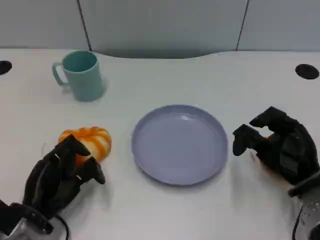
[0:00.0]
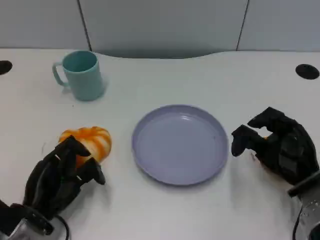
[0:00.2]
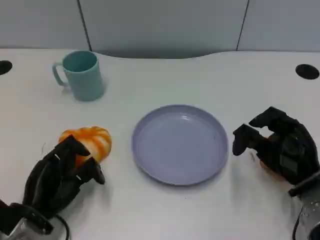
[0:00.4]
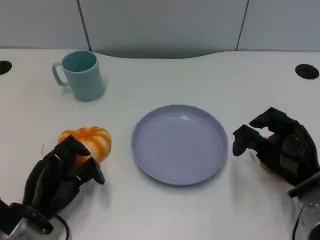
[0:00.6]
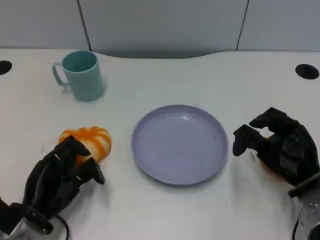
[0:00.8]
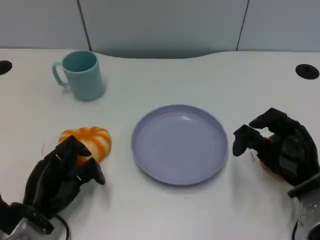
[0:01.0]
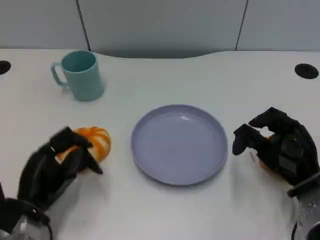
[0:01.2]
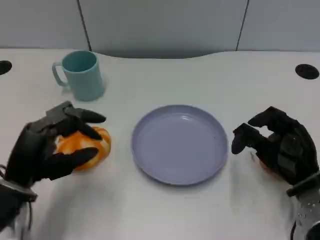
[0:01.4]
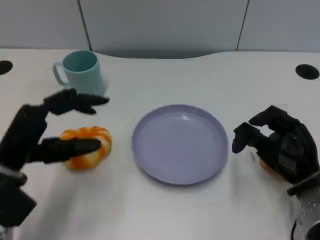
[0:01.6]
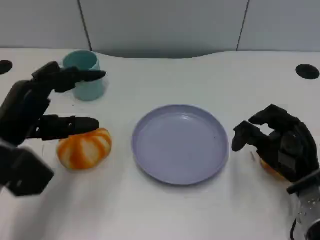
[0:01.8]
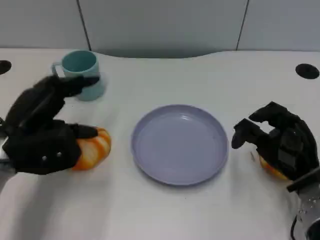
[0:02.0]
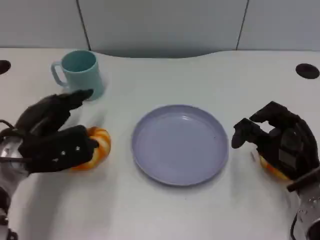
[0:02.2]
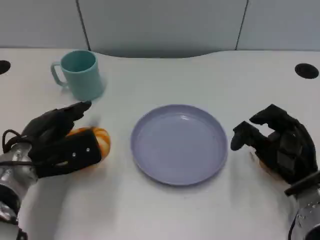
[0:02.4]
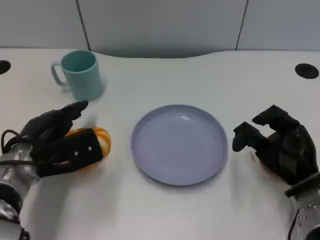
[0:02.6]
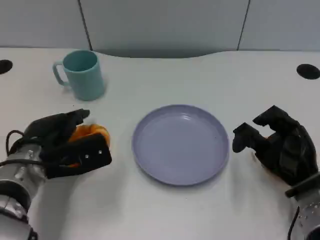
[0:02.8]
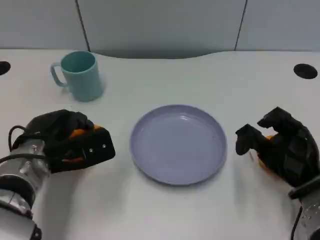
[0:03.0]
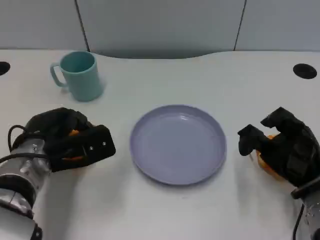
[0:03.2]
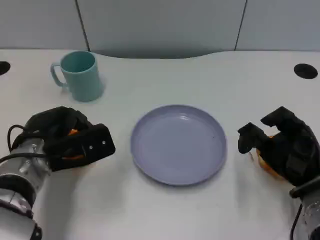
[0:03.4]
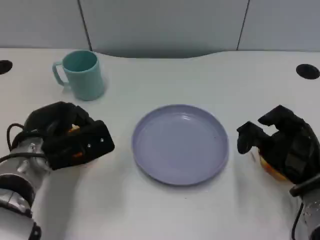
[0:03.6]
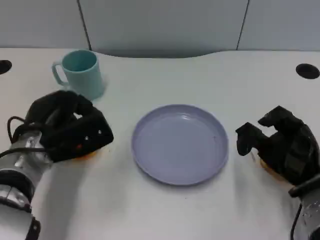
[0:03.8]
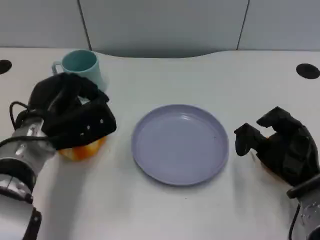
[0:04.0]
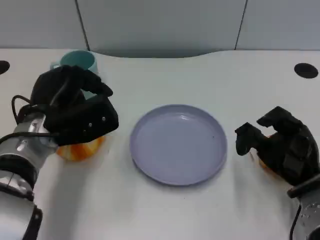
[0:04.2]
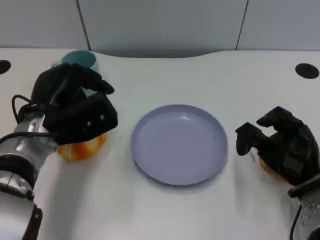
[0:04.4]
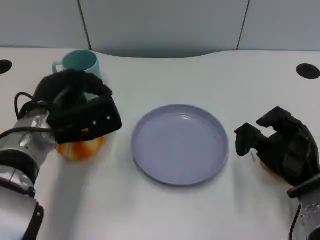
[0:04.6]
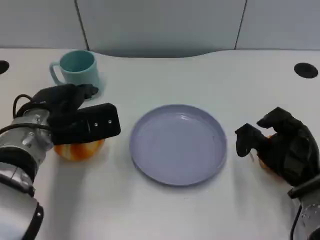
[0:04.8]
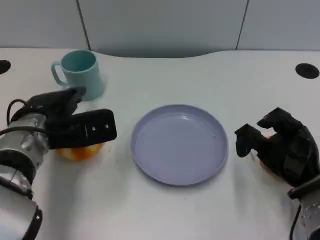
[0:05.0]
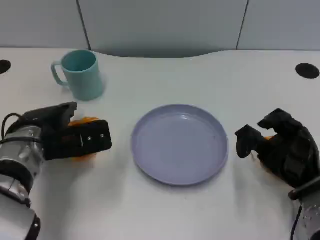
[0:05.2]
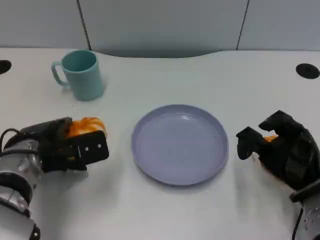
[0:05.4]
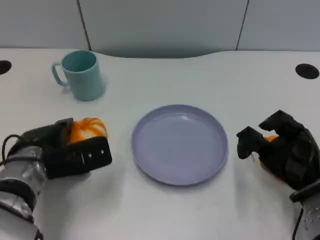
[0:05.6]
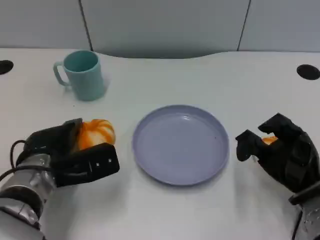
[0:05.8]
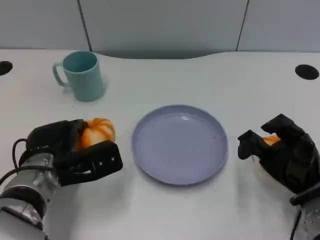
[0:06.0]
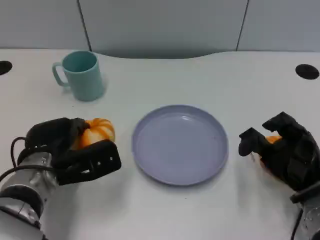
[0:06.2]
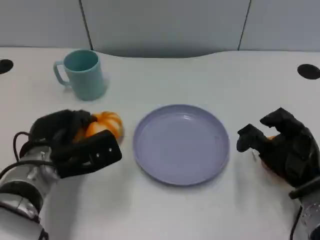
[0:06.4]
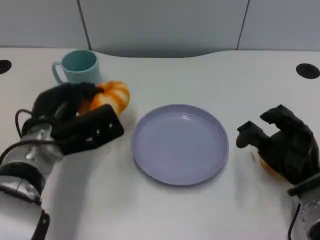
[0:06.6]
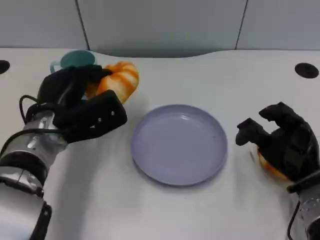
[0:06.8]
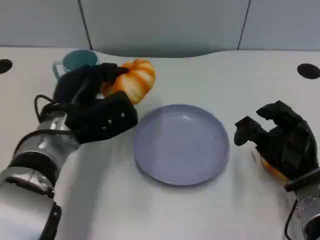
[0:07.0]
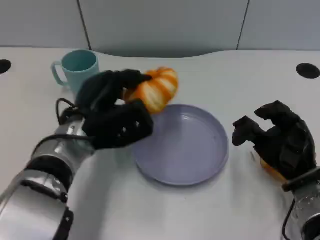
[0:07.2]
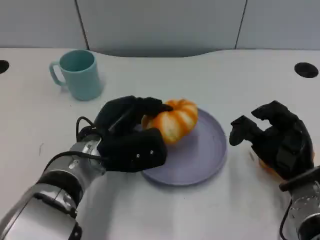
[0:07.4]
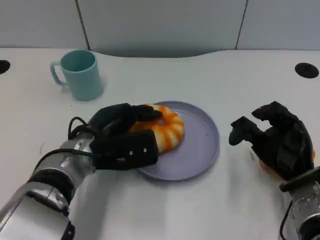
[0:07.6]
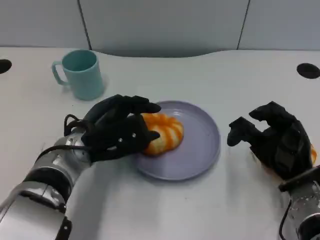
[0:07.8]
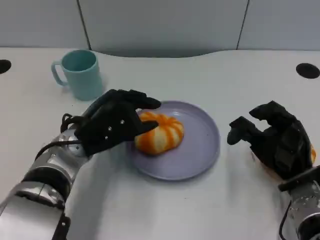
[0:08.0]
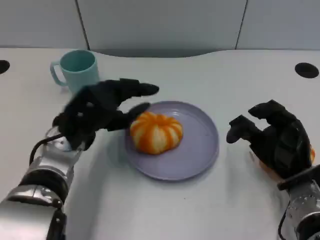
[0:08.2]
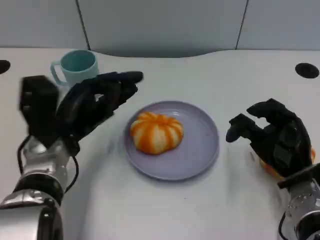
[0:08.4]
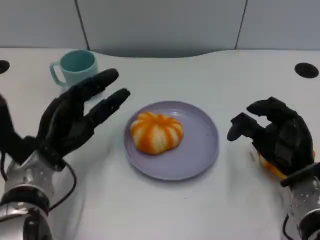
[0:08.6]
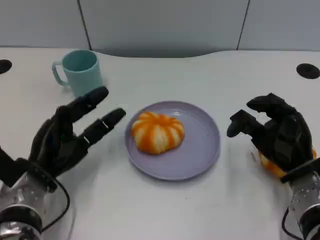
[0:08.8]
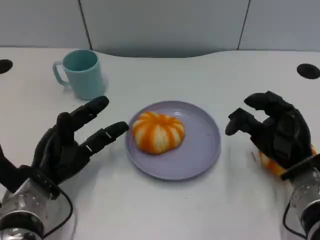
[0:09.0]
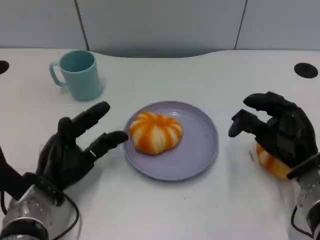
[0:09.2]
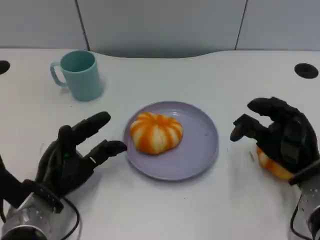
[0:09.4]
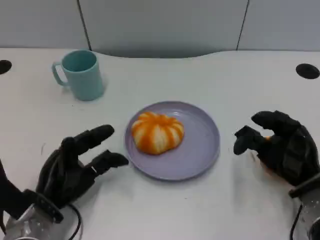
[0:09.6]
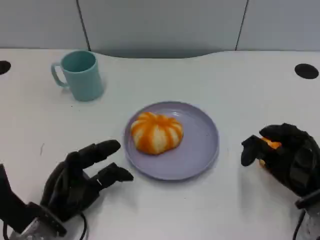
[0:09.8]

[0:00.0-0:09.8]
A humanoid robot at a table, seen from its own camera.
Task of the whole recording: Grasp the bread from the table and place it into the plate.
0:00.0 to 0:01.4: The left hand travels upward by about 10 cm.
0:01.4 to 0:02.8: The left hand is displaced forward by some 5 cm.
0:02.8 to 0:04.2: The left hand changes place by some 5 cm.
0:04.2 to 0:05.6: The left hand goes some 5 cm downward.
0:05.6 to 0:07.0: The left hand heads to the right and upward, covering some 10 cm.
0:08.4 to 0:09.8: The left hand heads downward and backward, covering about 10 cm.

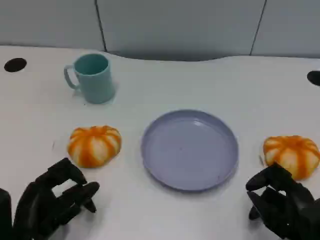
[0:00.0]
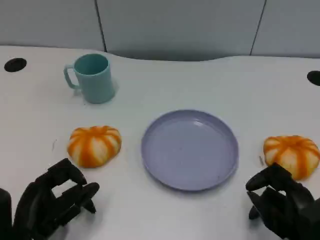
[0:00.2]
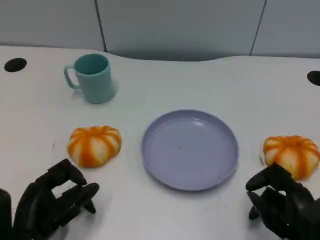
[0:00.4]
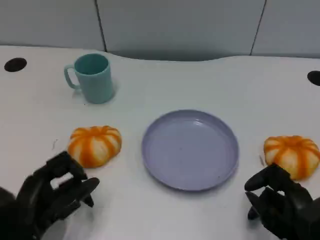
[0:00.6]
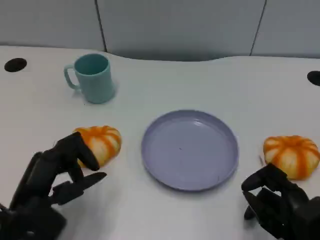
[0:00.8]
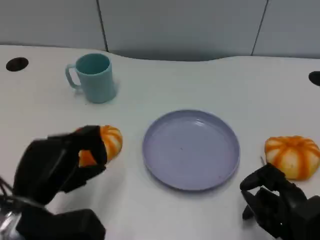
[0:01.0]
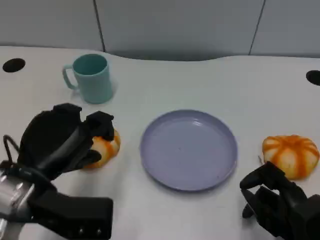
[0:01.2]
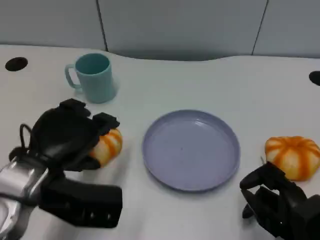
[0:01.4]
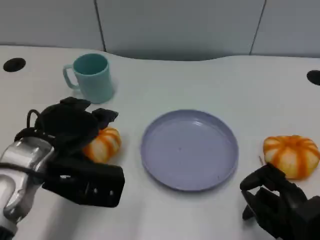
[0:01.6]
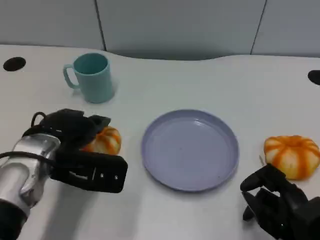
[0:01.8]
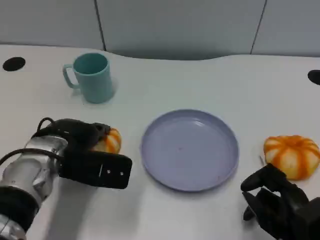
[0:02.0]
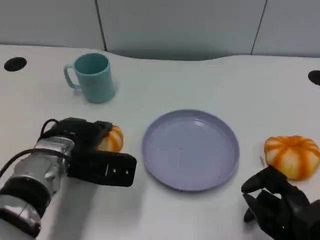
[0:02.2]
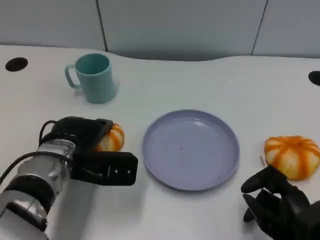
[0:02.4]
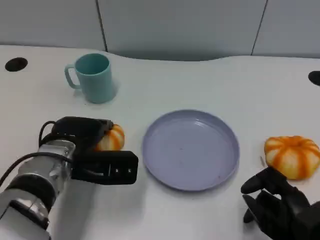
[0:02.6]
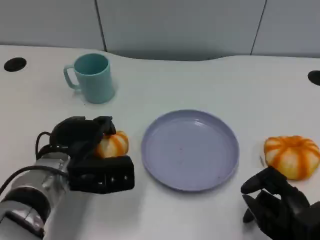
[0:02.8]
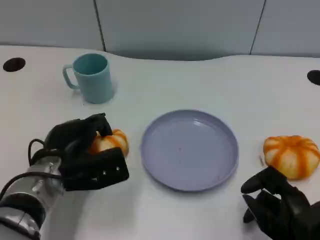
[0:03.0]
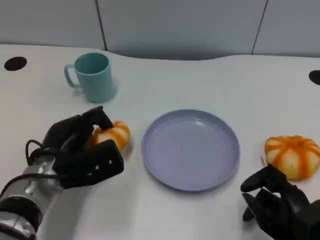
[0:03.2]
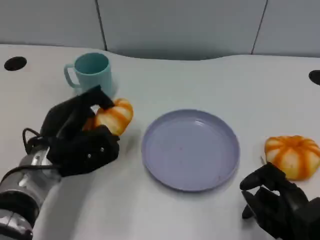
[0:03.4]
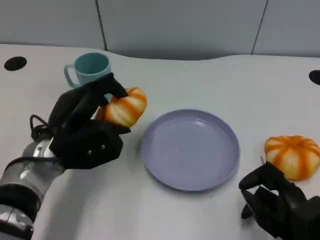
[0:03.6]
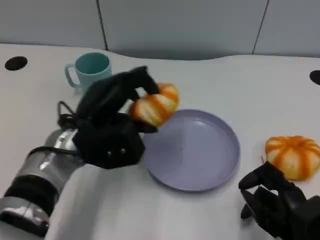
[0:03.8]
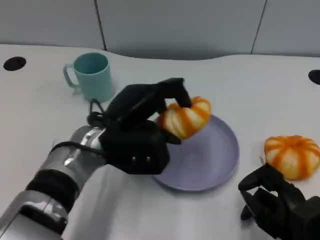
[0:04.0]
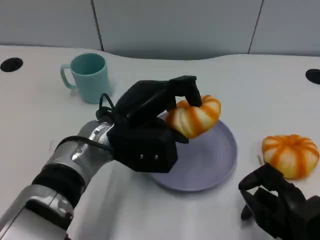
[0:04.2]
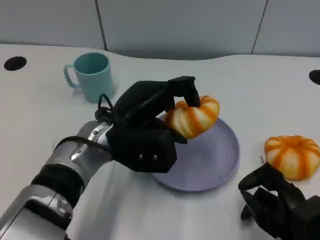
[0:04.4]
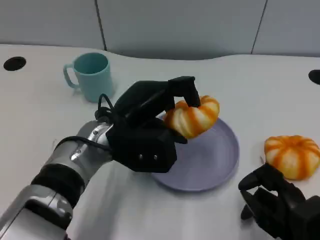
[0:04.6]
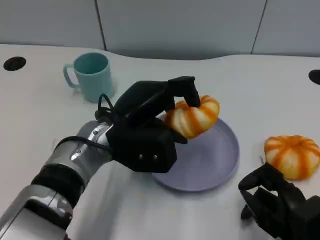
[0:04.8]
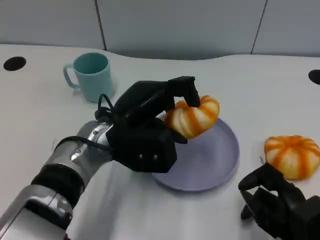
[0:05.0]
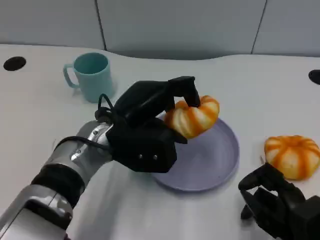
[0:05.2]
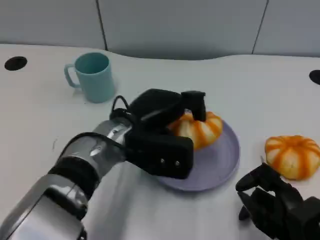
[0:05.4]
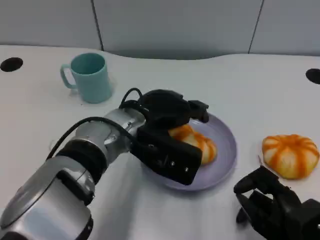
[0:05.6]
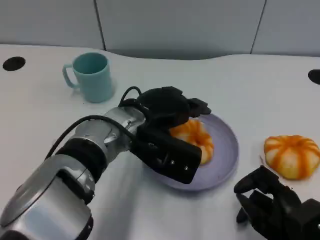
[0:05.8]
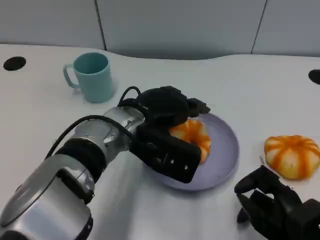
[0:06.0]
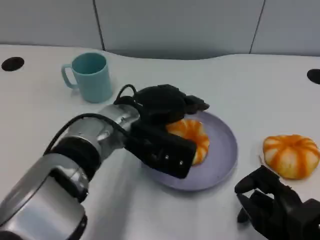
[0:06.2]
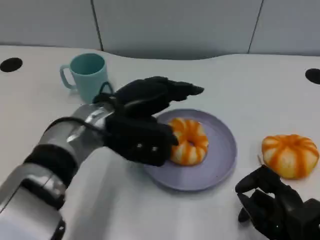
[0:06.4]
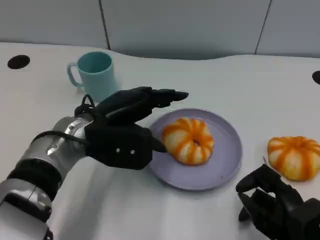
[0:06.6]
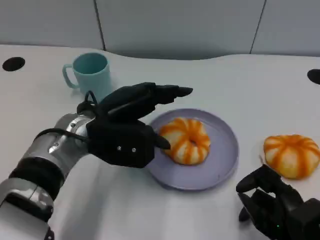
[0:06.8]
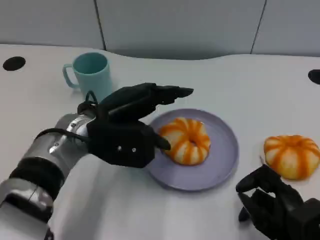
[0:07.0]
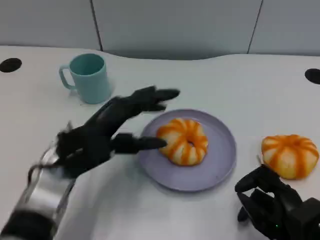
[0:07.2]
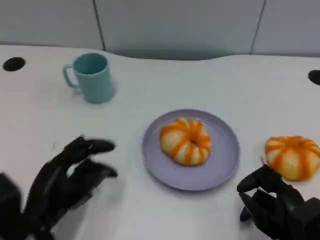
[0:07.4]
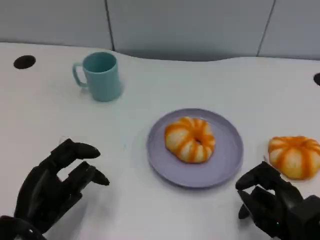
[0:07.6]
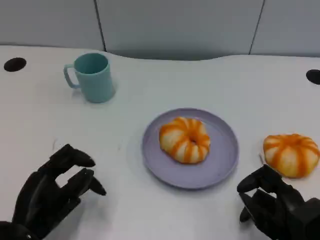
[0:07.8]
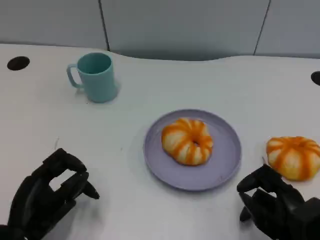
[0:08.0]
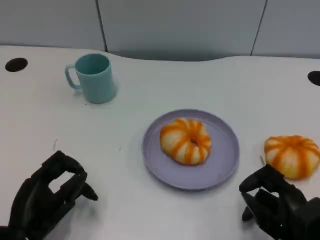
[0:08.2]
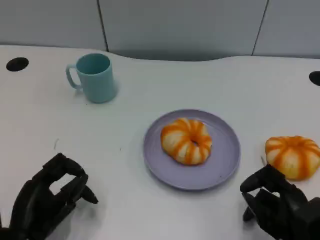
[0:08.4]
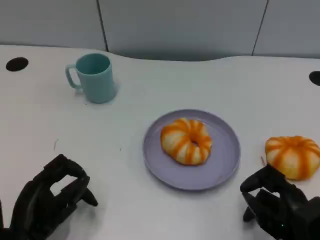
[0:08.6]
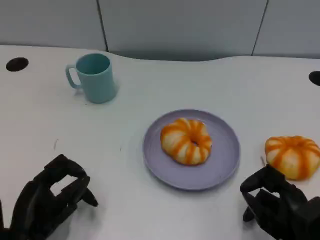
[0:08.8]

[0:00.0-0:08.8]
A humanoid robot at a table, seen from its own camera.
Task of the whole recording: Grasp the bread from the table and place it into the plate.
0:00.0 to 0:01.4: The left hand is displaced upward and forward by some 10 cm.
0:01.4 to 0:03.0: The left hand moves downward, some 10 cm.
0:03.0 to 0:04.4: The left hand moves to the right and upward, approximately 10 cm.
0:05.8 to 0:07.4: The left hand goes approximately 20 cm to the left, backward and downward.
0:07.4 to 0:08.8: The hands make only small movements.
